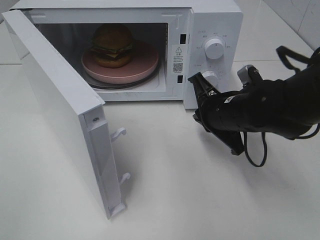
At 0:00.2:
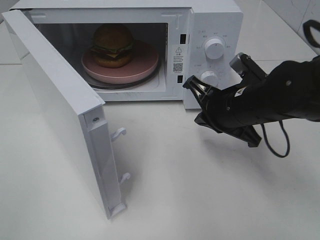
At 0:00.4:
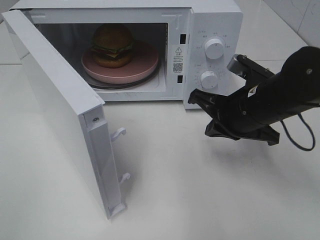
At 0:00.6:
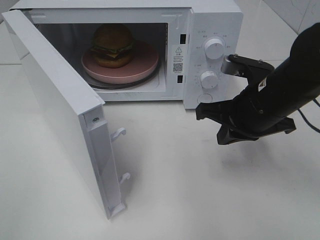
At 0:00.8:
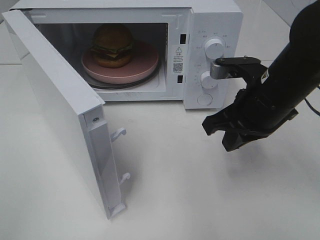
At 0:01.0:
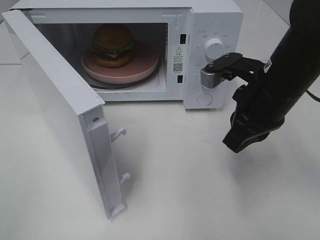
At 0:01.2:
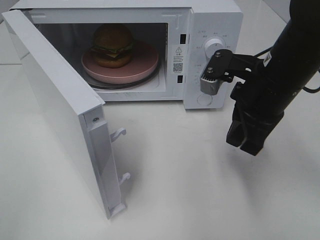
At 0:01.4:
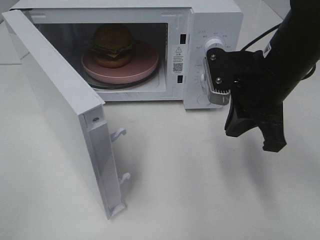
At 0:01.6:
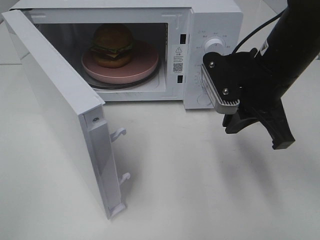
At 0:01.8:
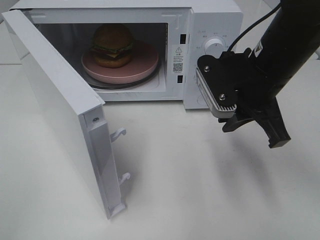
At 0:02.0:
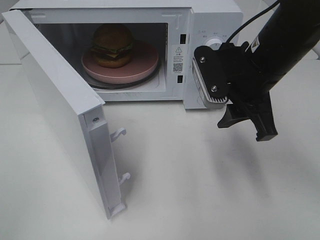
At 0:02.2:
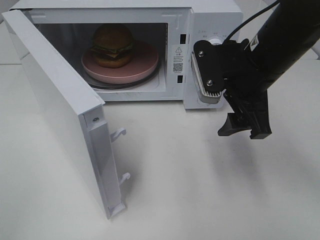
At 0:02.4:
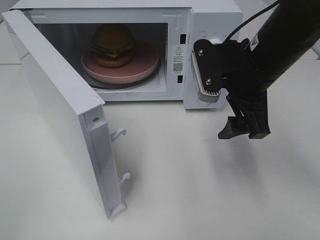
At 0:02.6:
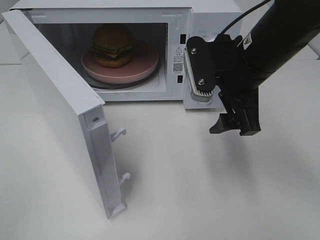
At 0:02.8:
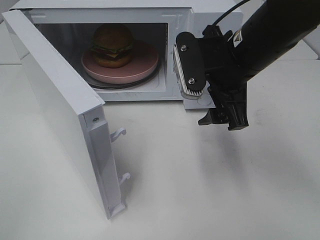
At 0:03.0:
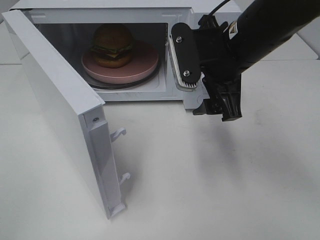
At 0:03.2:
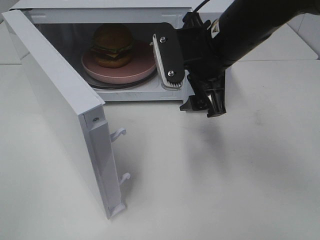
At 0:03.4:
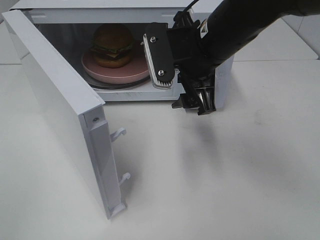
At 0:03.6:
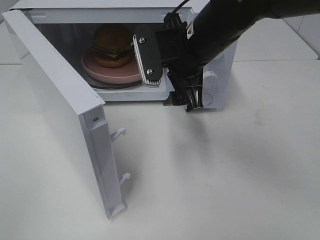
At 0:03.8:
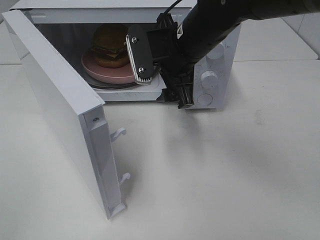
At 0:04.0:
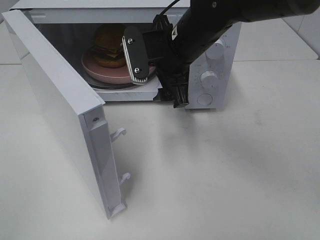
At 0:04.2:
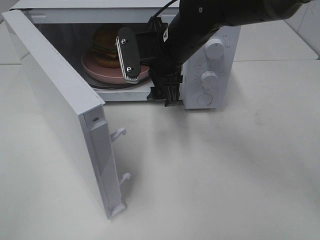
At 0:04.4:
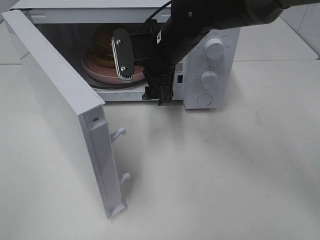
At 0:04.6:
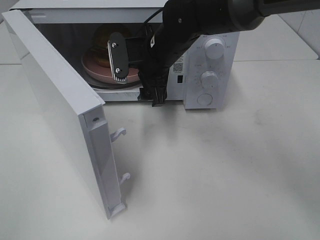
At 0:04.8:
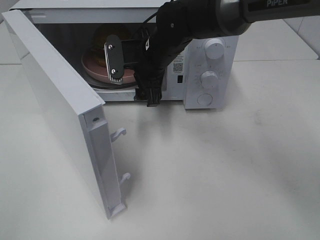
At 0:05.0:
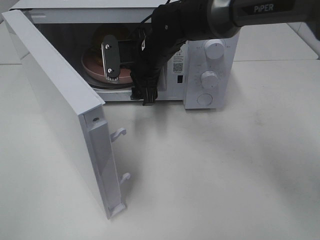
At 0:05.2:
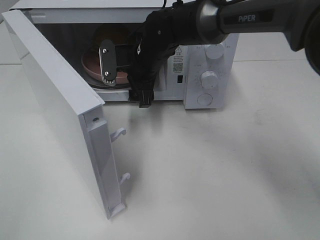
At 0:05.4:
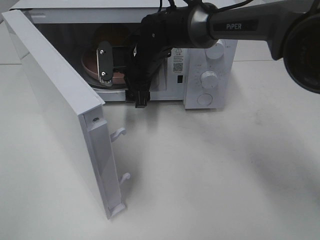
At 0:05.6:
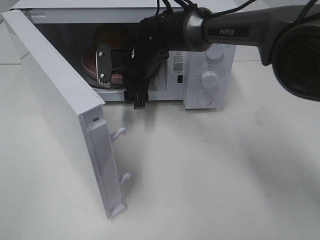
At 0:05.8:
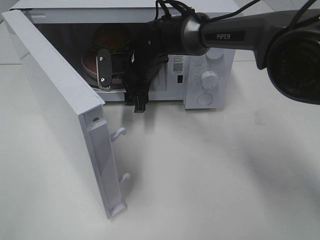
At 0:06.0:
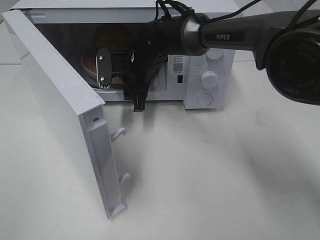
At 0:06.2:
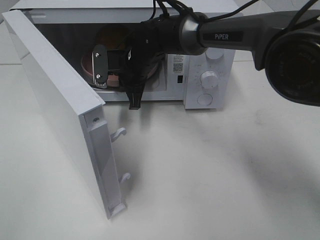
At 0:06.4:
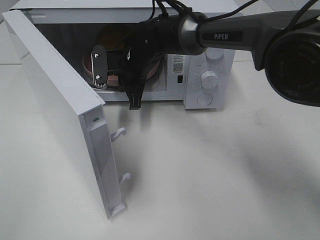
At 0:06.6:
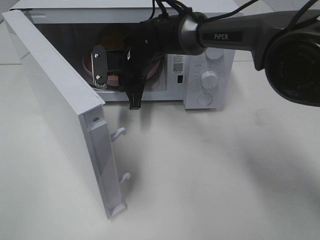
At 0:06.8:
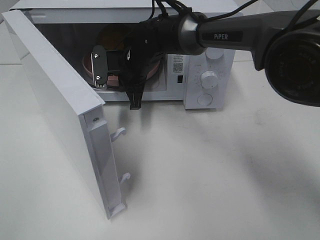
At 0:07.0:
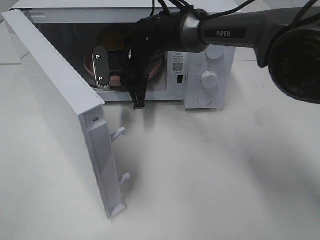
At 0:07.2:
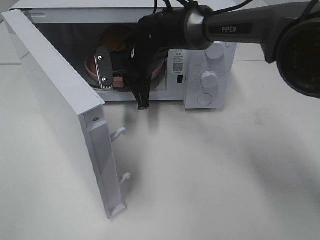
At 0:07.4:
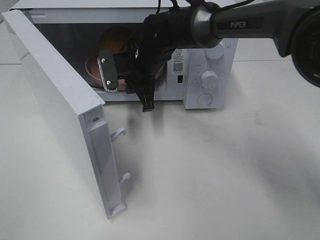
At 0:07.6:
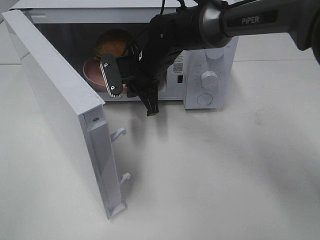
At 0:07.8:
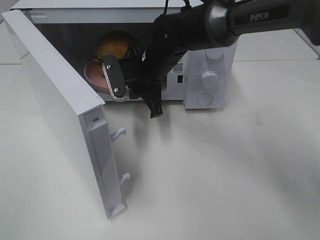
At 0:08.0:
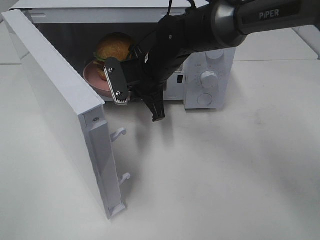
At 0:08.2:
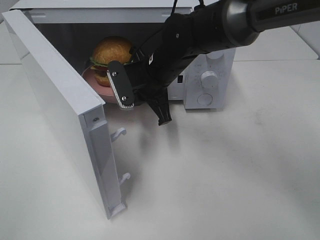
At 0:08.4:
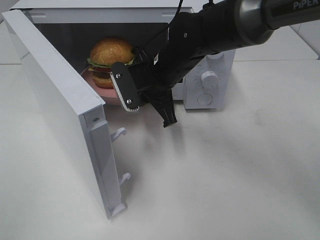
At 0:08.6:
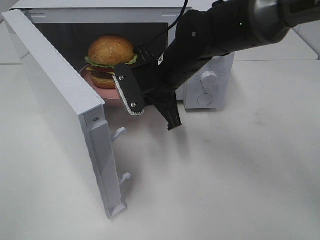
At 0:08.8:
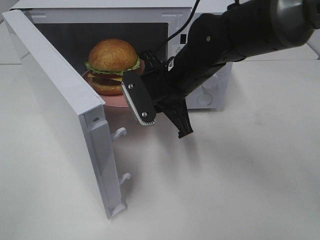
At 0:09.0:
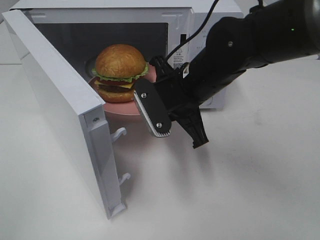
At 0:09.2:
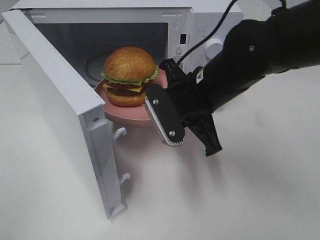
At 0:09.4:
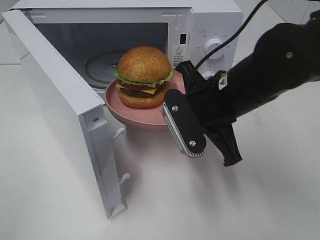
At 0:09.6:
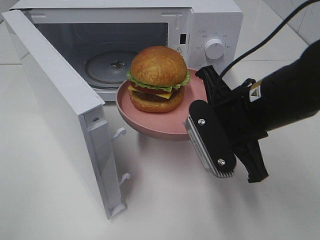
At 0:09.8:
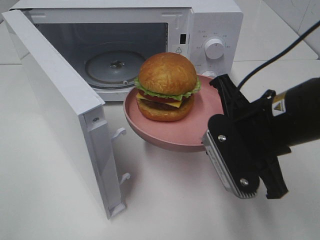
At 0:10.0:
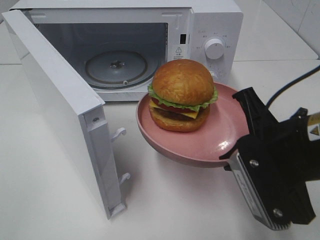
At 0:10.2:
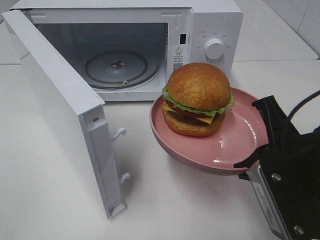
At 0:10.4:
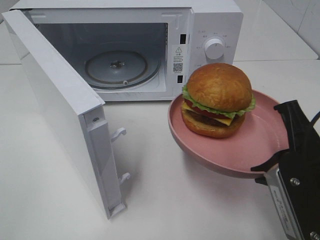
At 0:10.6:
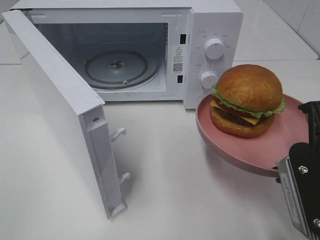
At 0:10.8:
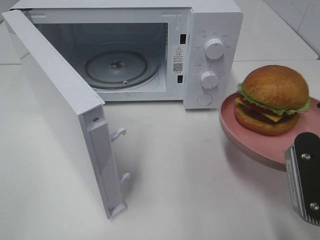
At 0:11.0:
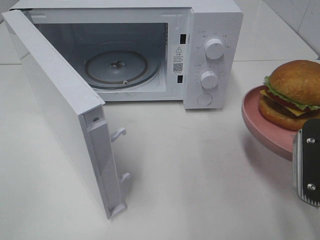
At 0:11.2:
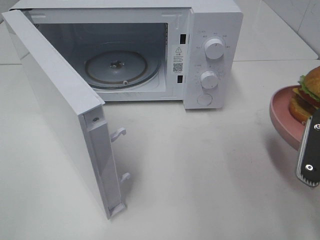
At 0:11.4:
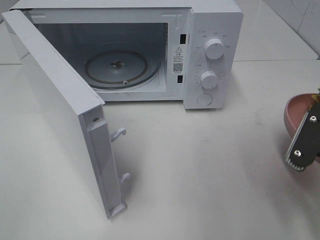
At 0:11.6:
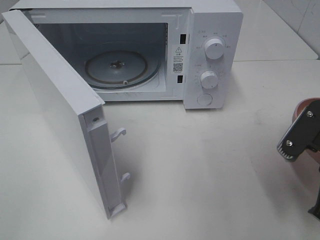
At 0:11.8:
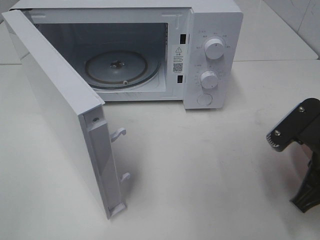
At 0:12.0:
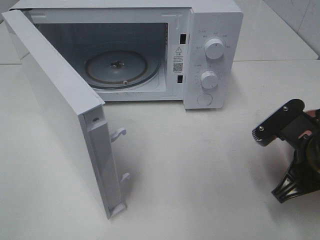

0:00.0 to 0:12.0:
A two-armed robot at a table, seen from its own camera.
Task of the whole recording: Heat the burger.
Step, 0:00.0 to 0:07.0: Right hand: grab the plate with the hamburger.
0:00.0 to 0:01.6: The right gripper is displaced upward by approximately 10 cm.
0:01.6 to 0:03.0: The right gripper changes place by about 5 cm, and opens its fingers.
0:03.0 to 0:04.4: The right gripper goes approximately 10 cm forward and to the left.
0:04.4 to 0:06.0: The right gripper moves downward and forward, some 10 cm, and closes.
0:06.0 to 0:07.6: The right gripper closes.
0:07.6 to 0:09.0: The right gripper heads backward and to the right, covering about 15 cm.
0:09.0 to 0:10.4: The right gripper moves backward and to the right, roughly 20 cm.
0:10.4 to 0:12.0: The right gripper moves downward and forward, about 10 cm.

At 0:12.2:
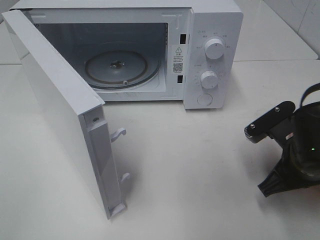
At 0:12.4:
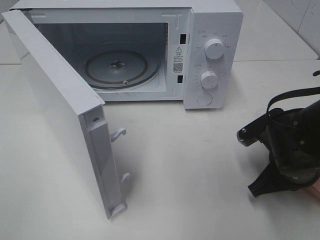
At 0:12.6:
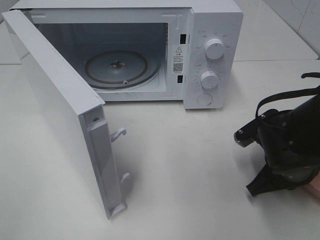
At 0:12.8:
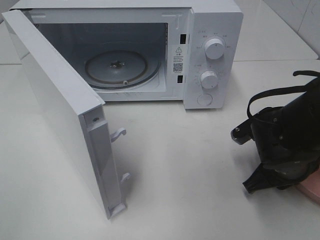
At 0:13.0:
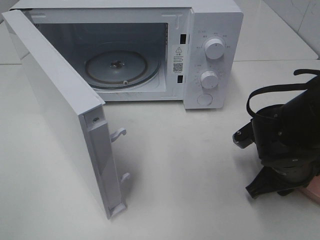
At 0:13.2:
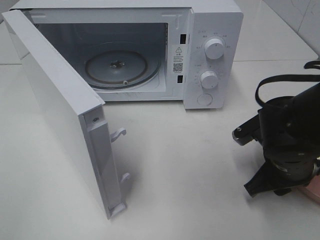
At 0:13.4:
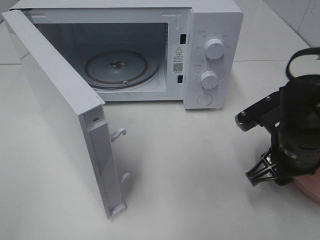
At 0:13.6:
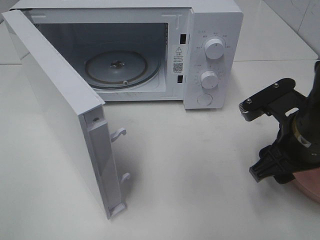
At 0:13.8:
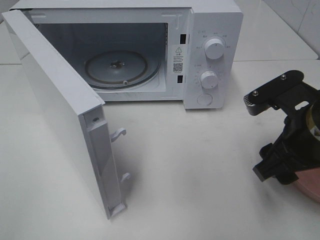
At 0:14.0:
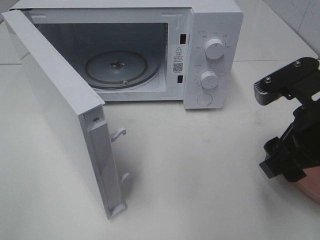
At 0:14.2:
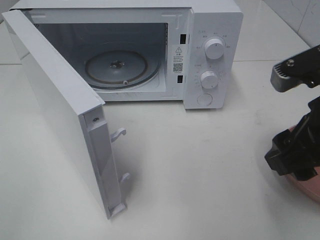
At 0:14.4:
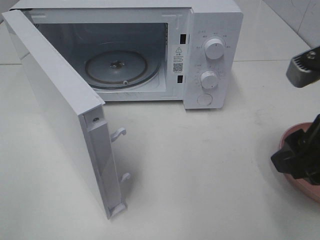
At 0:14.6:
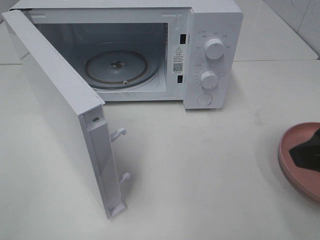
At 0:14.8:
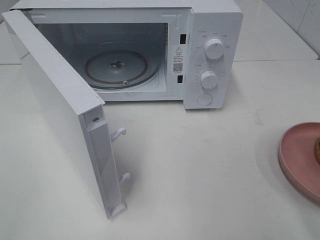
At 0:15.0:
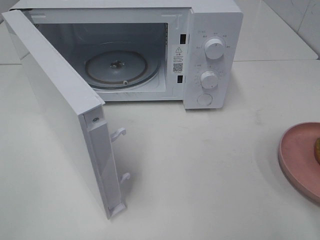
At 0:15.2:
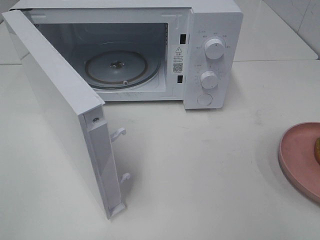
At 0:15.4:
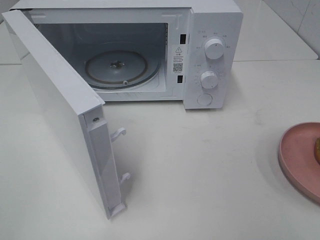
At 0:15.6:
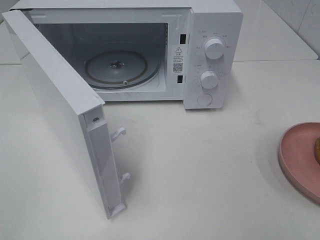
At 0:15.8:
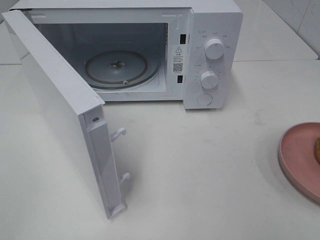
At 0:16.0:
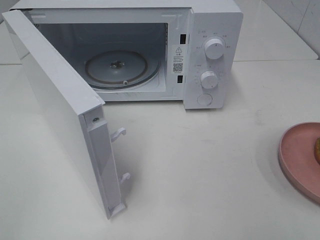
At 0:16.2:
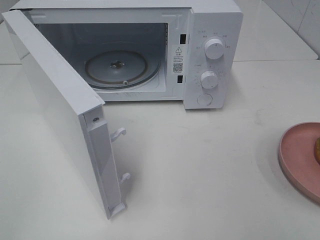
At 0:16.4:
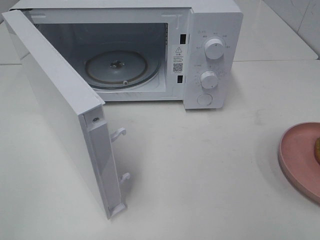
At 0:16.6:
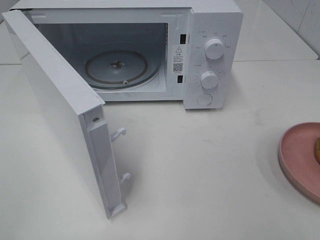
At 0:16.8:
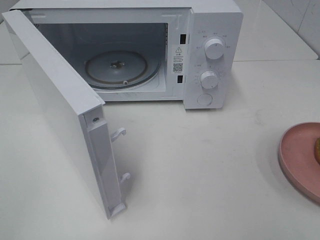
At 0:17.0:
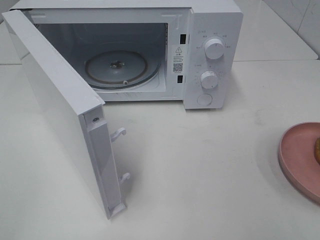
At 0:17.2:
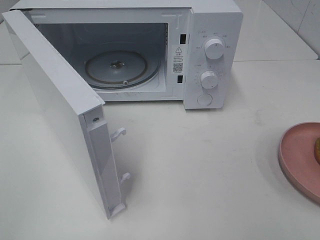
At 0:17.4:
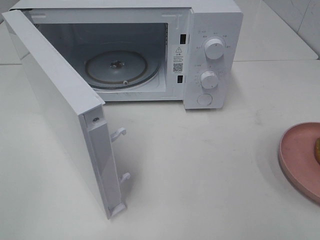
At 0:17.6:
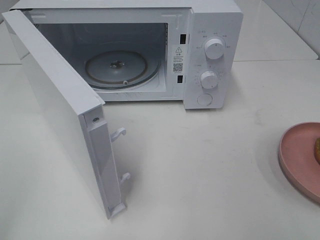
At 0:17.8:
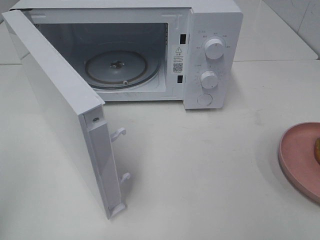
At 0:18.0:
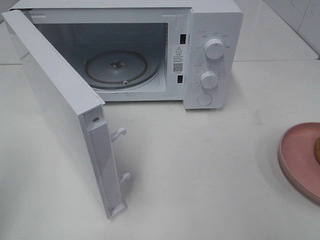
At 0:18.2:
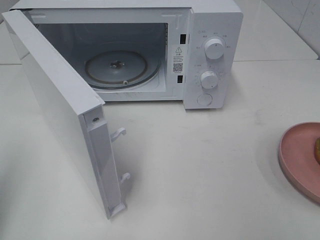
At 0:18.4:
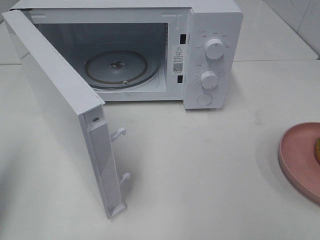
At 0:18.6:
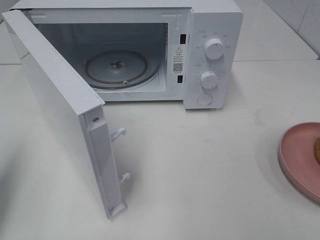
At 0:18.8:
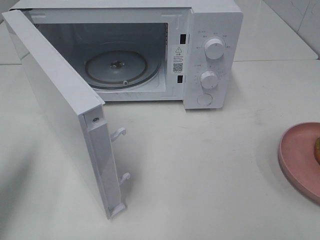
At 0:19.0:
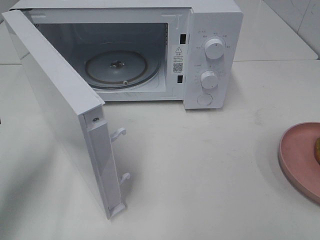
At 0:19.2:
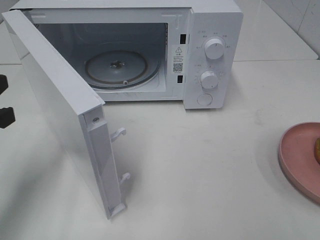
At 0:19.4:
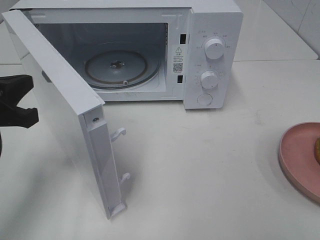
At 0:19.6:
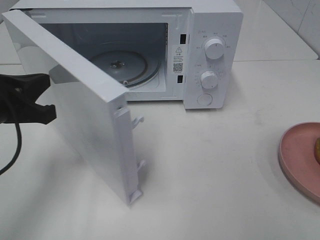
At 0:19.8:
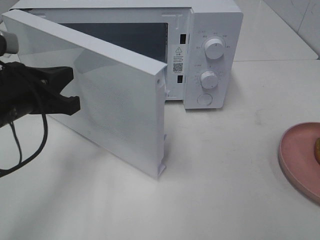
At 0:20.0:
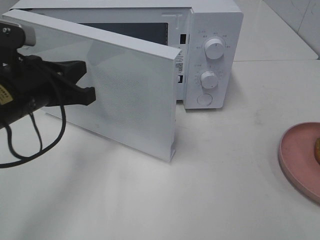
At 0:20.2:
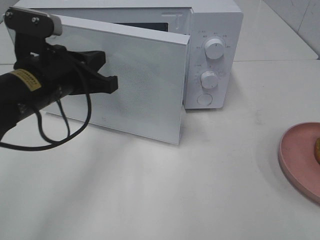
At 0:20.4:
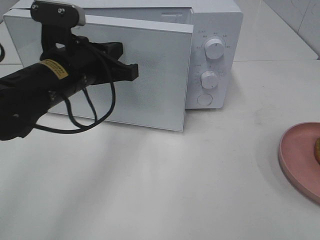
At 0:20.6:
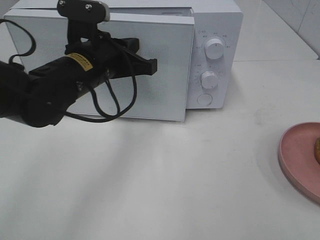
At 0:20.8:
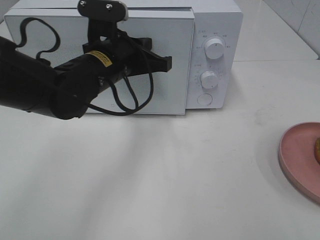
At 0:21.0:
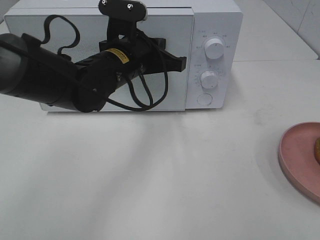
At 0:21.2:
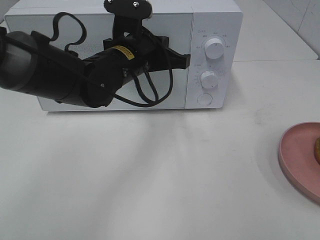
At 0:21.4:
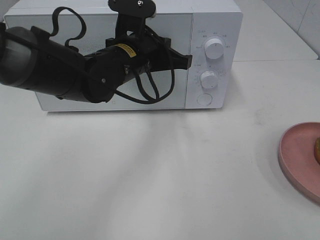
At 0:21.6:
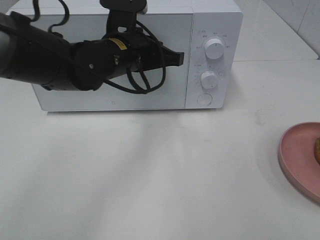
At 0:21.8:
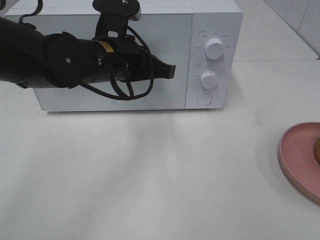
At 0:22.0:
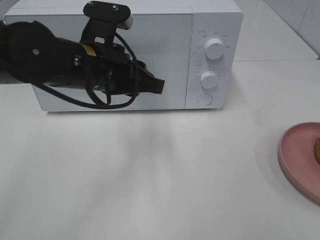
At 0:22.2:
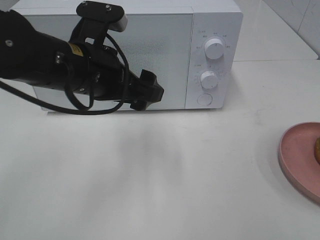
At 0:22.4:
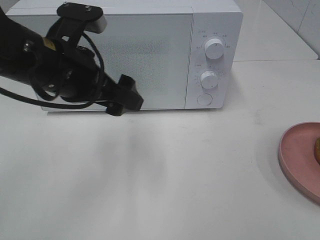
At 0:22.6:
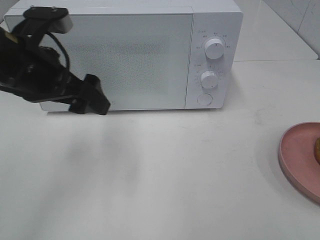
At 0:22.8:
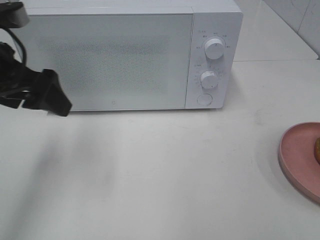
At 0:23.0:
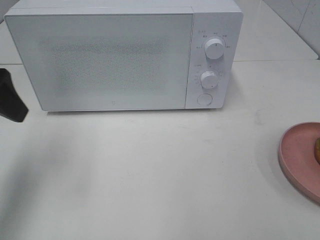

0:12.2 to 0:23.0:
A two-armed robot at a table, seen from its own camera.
Task of the whole recording: Heat the burger.
Step, 0:14.2 to 0:21.8: Left hand: close the microwave door.
0:12.2 to 0:13.8: The right gripper moves upward, roughly 10 cm, and opens.
0:13.8 to 0:15.2: The right gripper heads backward, upward and to the right, covering about 20 cm.
0:16.8 to 0:18.4: The left gripper travels forward by about 15 cm, and closes.
0:18.4 to 0:20.0: The left gripper moves to the right and forward, about 20 cm.
0:20.0 to 0:21.4: The left gripper shifts roughly 15 cm to the right and forward.
0:21.4 to 0:23.0: The left gripper travels to the left, backward and upward by roughly 25 cm, and opens.
